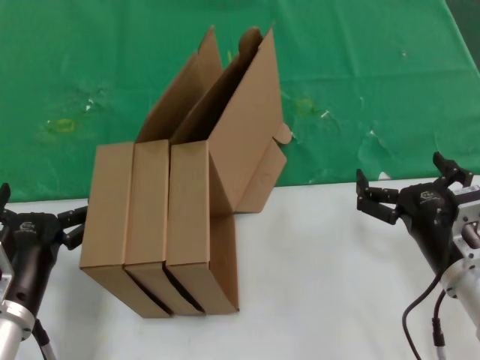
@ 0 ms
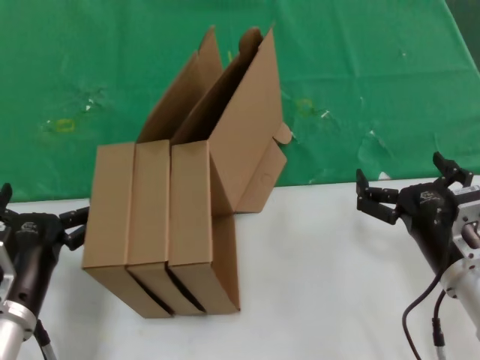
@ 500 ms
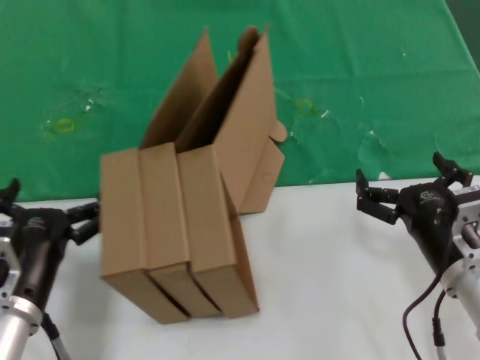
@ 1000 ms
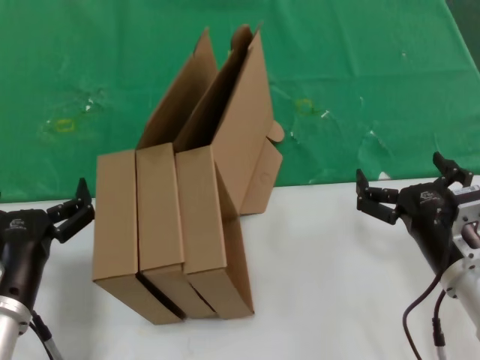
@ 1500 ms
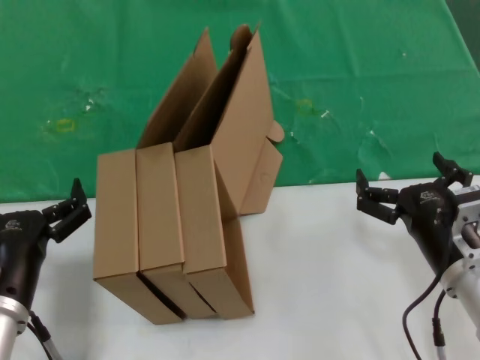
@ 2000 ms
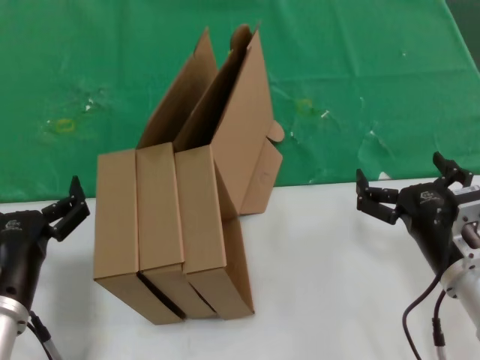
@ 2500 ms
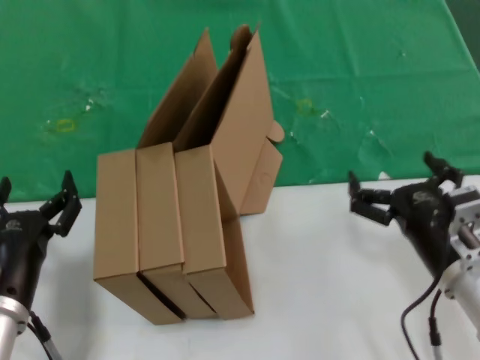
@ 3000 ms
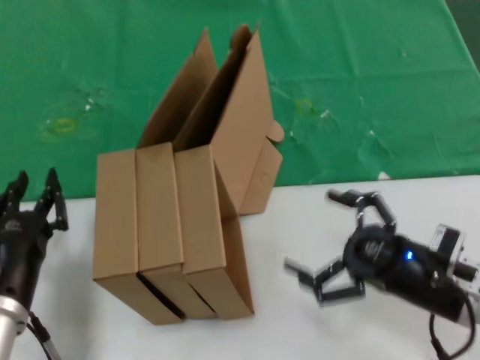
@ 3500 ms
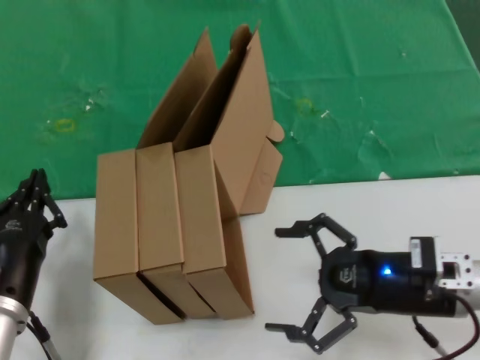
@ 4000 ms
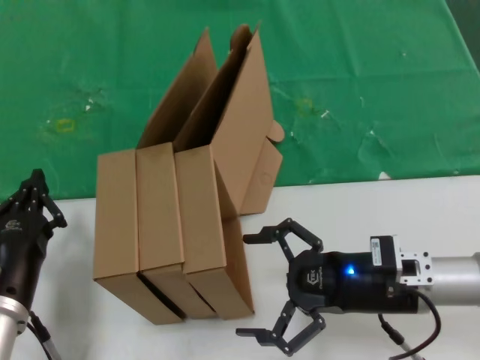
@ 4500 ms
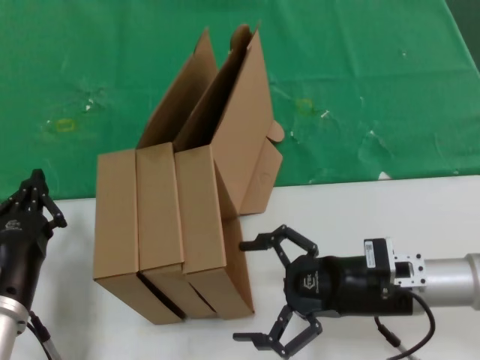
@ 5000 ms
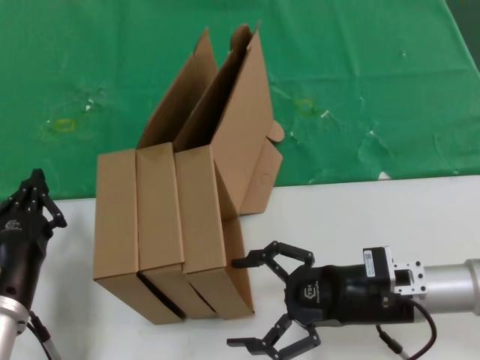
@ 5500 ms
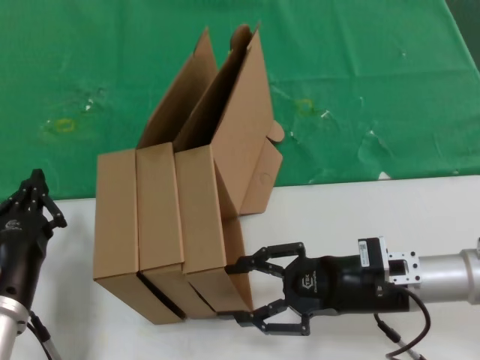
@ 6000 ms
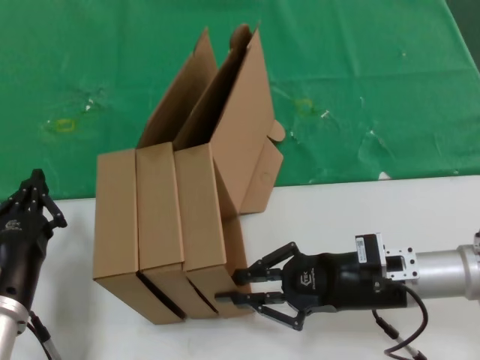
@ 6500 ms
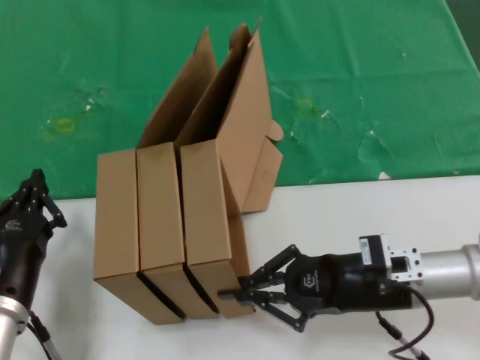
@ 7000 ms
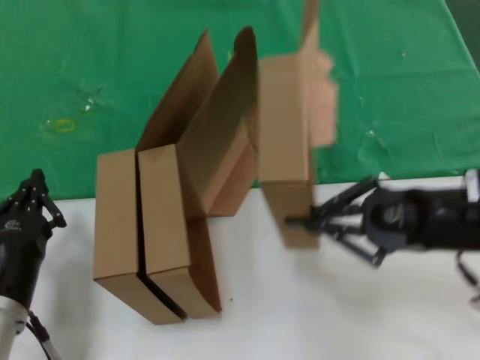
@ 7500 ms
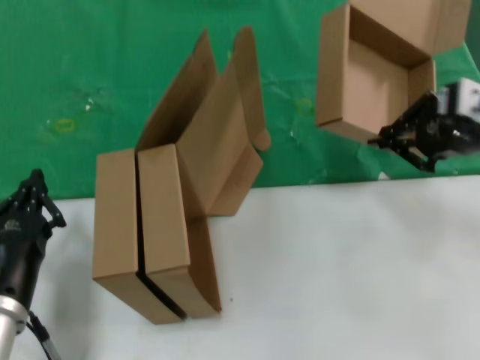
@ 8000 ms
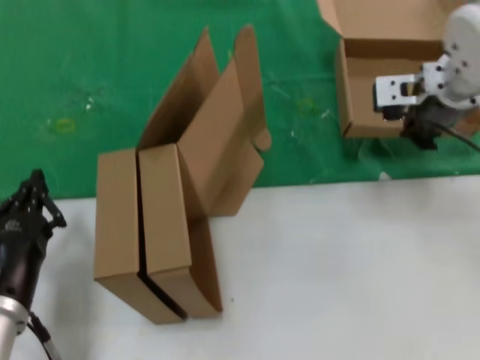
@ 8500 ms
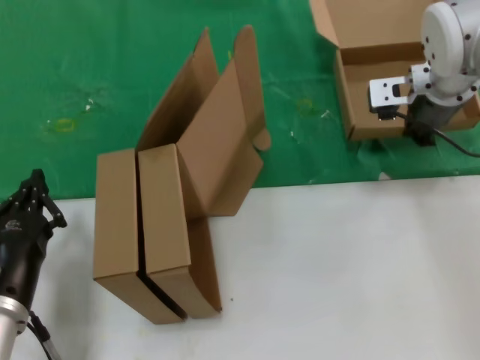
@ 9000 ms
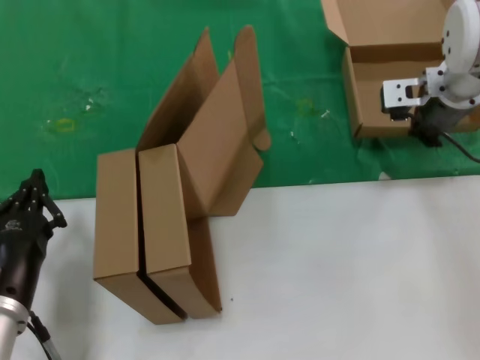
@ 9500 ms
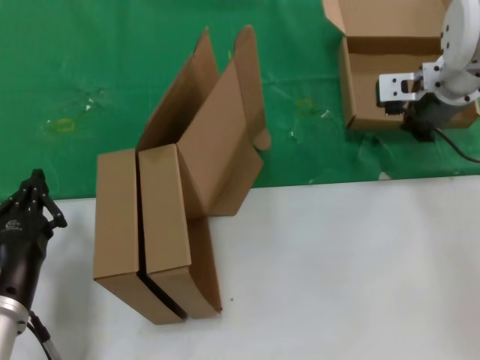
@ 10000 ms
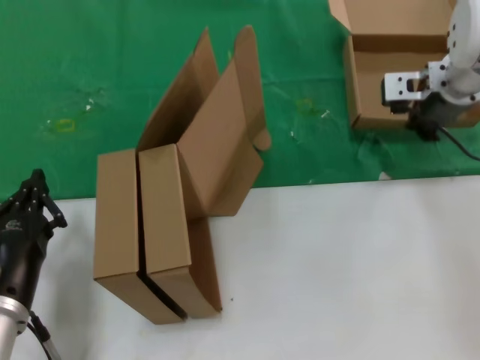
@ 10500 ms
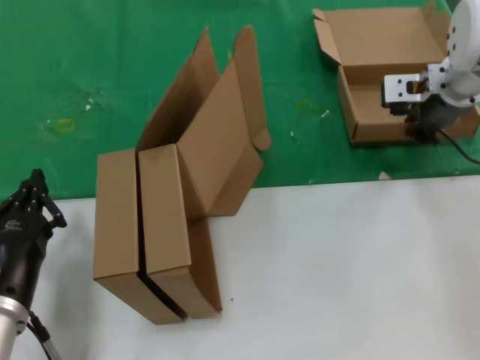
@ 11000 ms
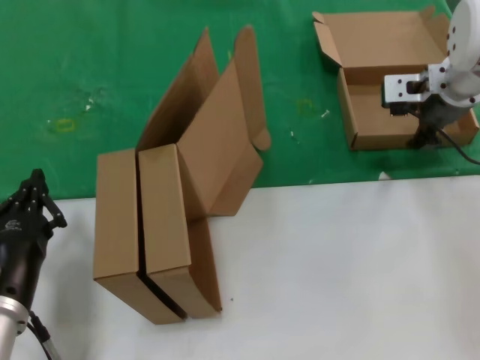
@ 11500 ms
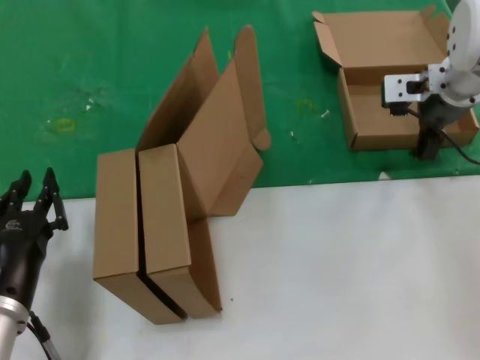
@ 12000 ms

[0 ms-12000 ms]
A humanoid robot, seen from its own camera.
Task of the whole recording: pick up the paper box and put it at the back.
Step, 0 ms to 7000 ms: Grasp the paper box.
Step, 7500 ms to 11000 ms: Place the paper box on the table.
0 ms to 2000 ms: The hands make only small movements.
2000 ms to 4000 ms: The right hand ends up some 5 cm from where it was.
4000 ms to 6000 ms: The right hand changes place by roughly 5 cm.
6000 ms to 8000 ms: The right hand goes some 20 cm upward.
8000 ms to 10000 ms: The right hand shifts approximately 15 cm forward and to the left.
10000 ms to 12000 ms: Both hands stay about where they are.

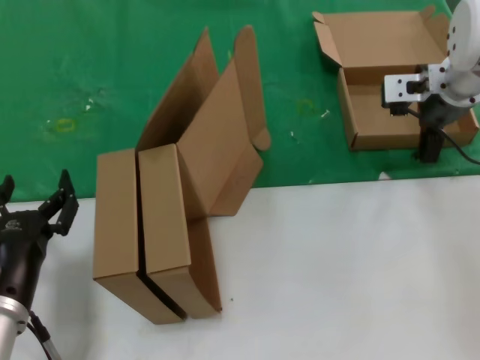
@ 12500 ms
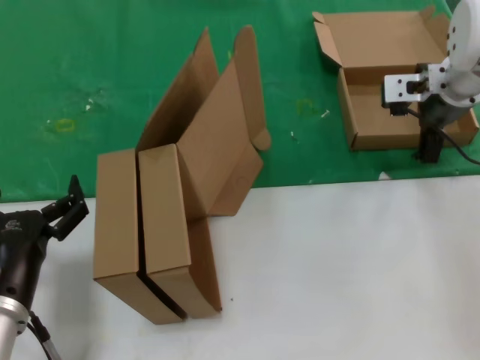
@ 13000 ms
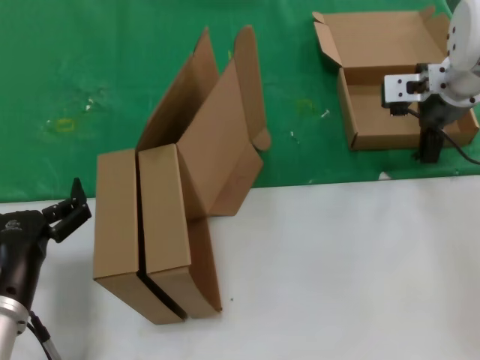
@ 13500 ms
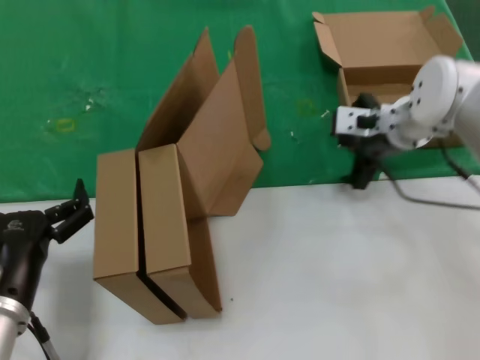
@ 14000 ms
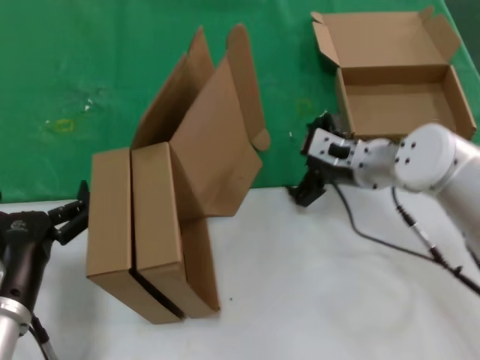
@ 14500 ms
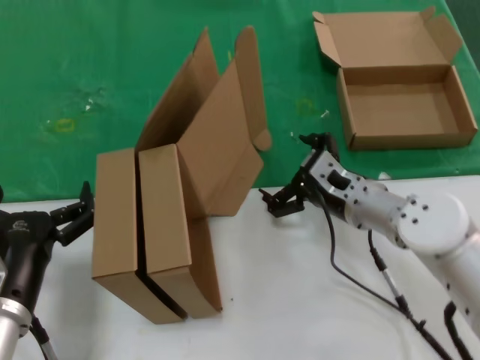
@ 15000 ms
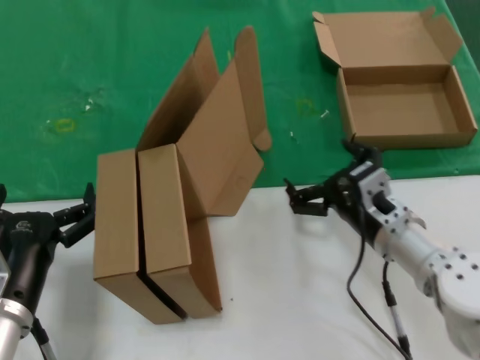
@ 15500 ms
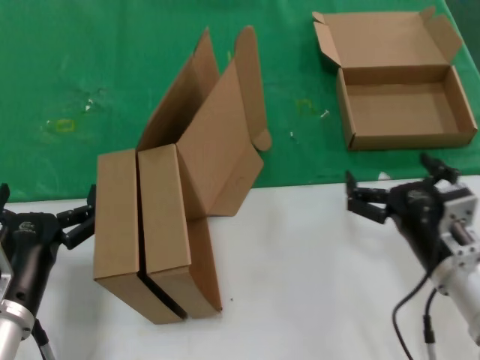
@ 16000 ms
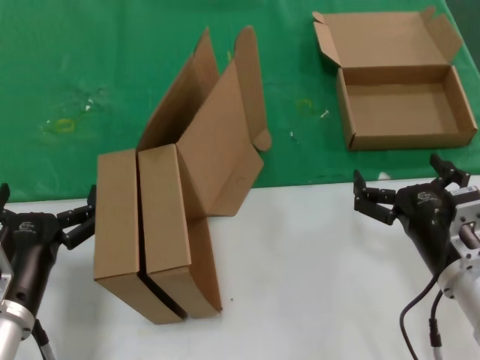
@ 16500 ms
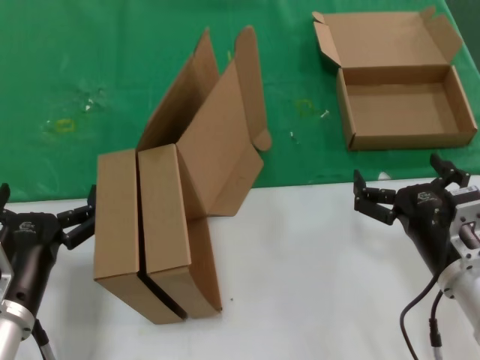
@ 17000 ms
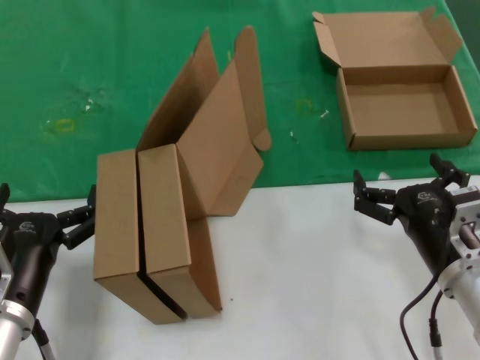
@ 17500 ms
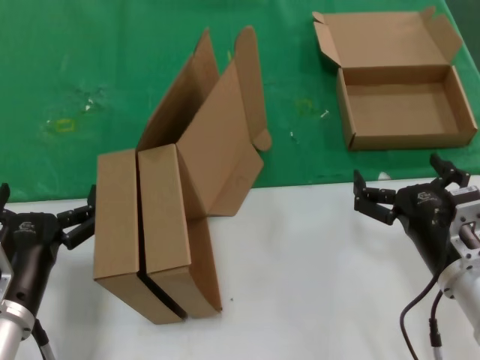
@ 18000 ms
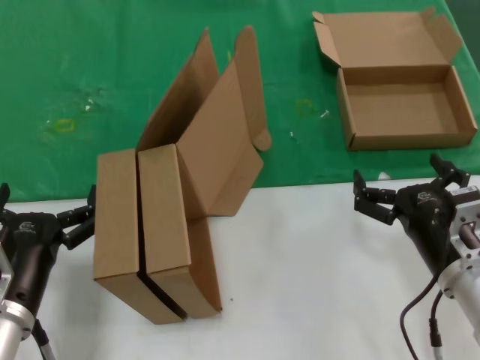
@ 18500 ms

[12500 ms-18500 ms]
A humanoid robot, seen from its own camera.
Task of the whole recording: pick up the paper box and put it at the back.
12500 ms to 14500 ms: The right hand shifts roughly 15 cm downward and to the left.
14500 ms to 16500 ms: The right hand moves backward, about 20 cm.
16500 ms to 18500 ms: Neither hand changes place.
